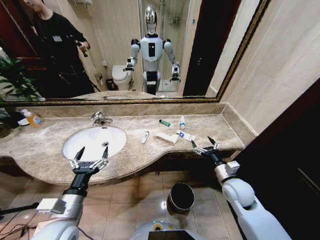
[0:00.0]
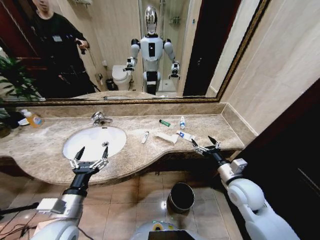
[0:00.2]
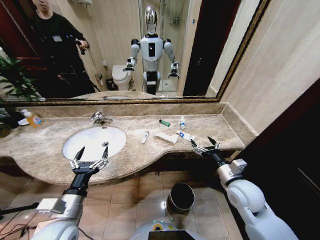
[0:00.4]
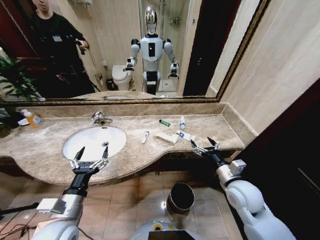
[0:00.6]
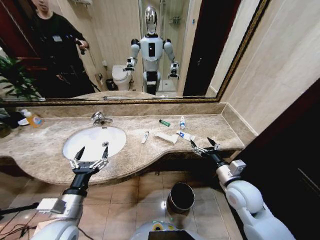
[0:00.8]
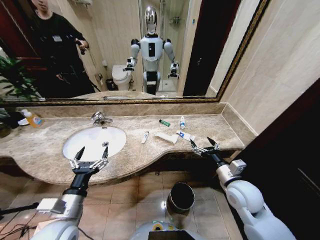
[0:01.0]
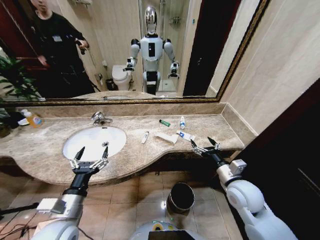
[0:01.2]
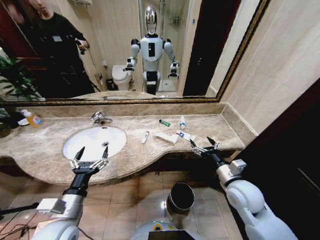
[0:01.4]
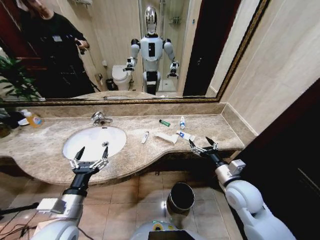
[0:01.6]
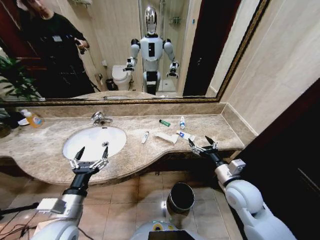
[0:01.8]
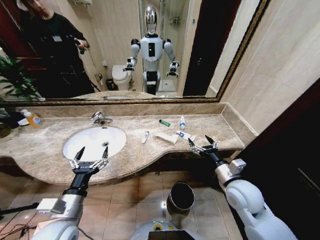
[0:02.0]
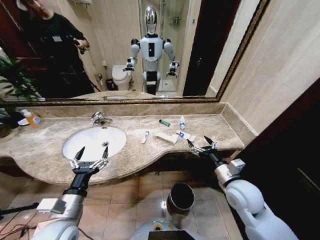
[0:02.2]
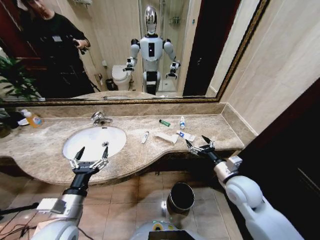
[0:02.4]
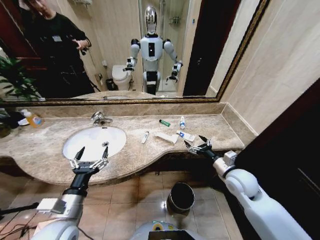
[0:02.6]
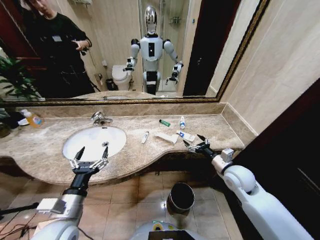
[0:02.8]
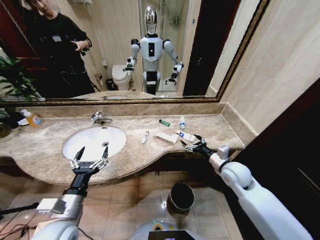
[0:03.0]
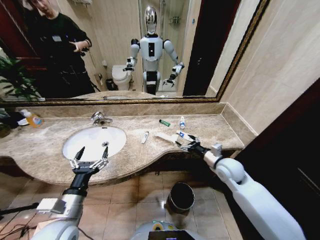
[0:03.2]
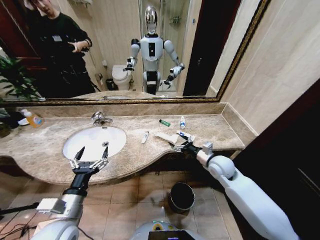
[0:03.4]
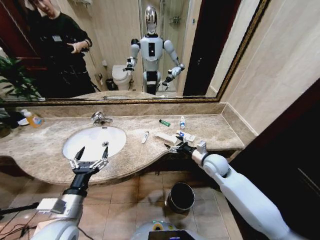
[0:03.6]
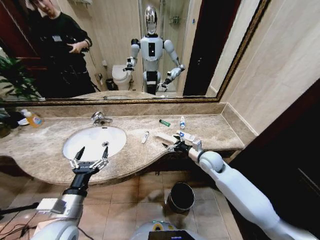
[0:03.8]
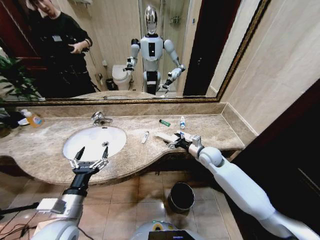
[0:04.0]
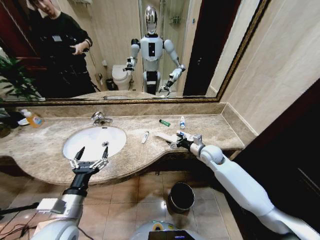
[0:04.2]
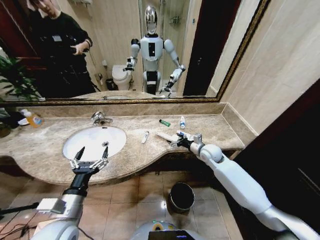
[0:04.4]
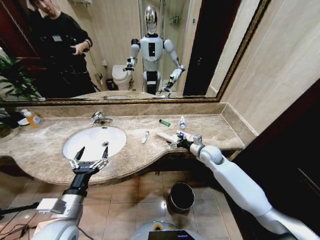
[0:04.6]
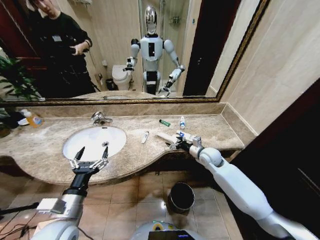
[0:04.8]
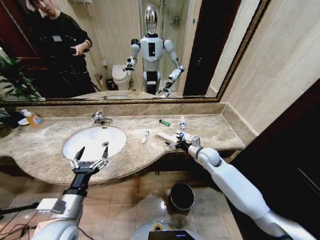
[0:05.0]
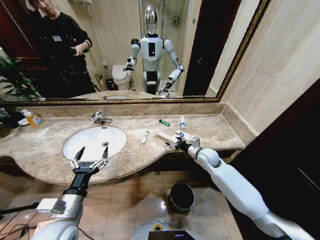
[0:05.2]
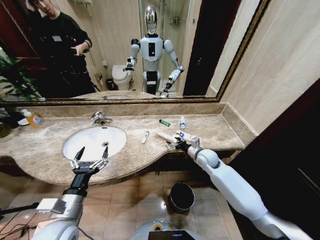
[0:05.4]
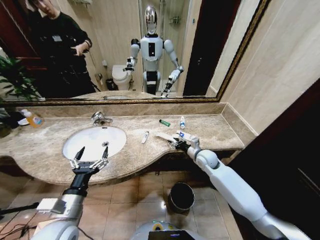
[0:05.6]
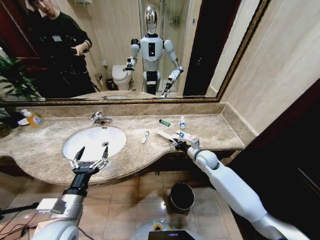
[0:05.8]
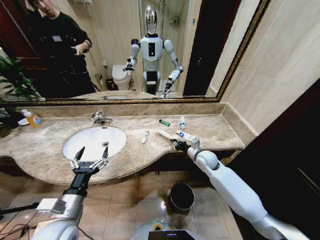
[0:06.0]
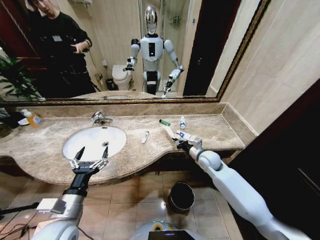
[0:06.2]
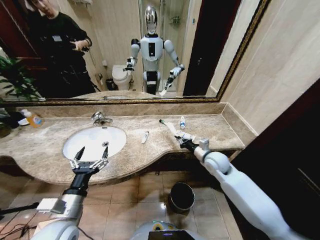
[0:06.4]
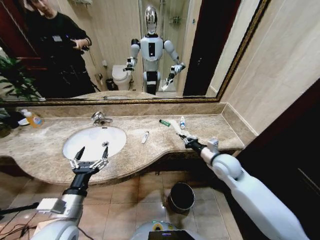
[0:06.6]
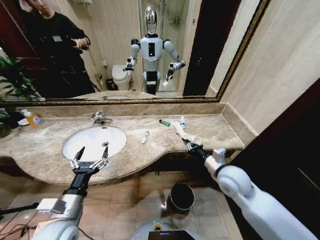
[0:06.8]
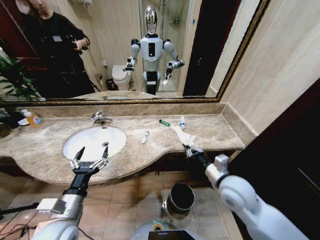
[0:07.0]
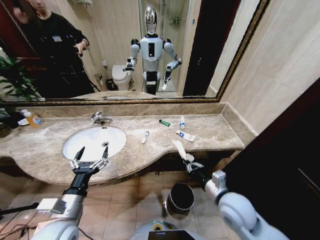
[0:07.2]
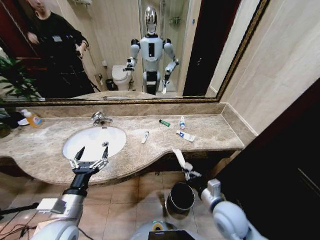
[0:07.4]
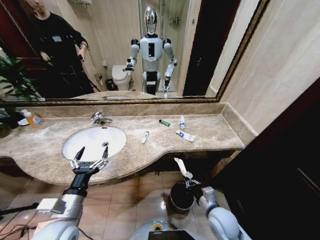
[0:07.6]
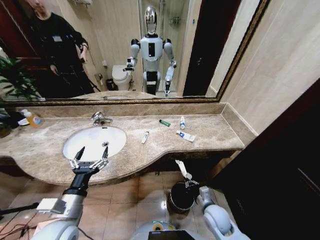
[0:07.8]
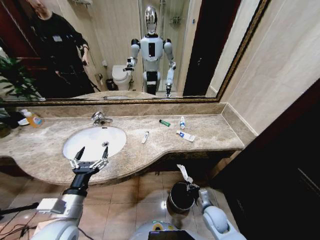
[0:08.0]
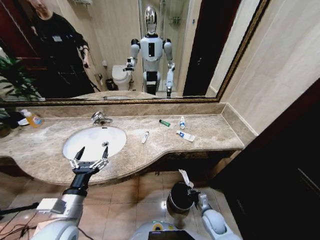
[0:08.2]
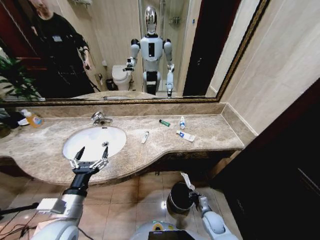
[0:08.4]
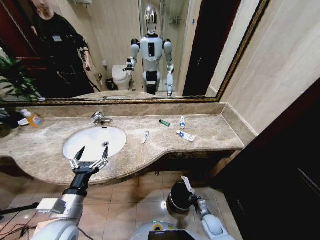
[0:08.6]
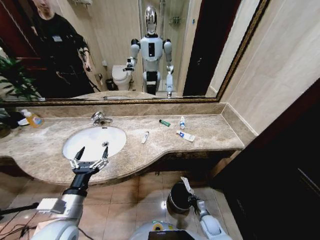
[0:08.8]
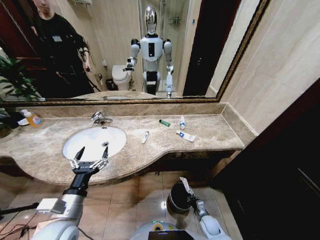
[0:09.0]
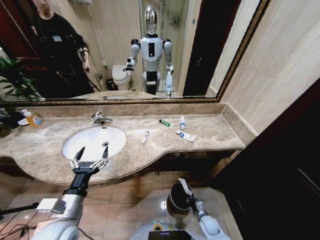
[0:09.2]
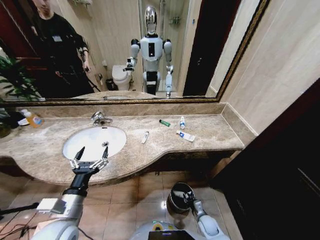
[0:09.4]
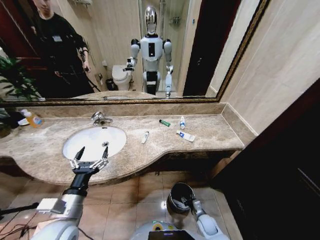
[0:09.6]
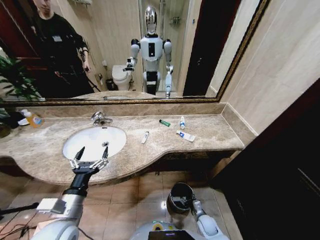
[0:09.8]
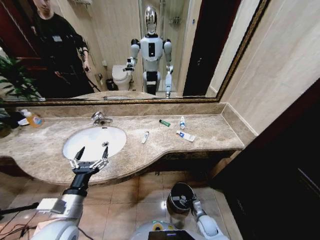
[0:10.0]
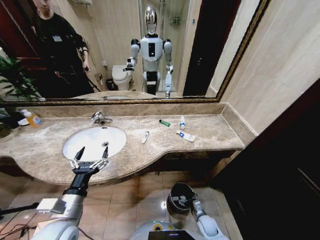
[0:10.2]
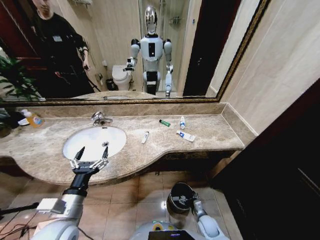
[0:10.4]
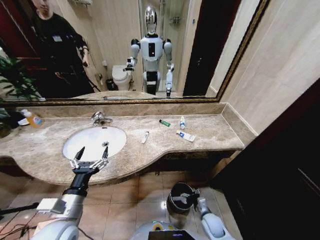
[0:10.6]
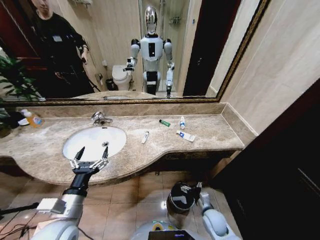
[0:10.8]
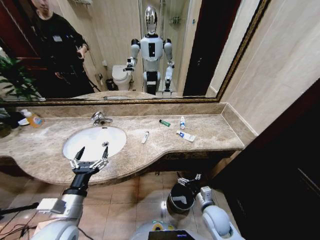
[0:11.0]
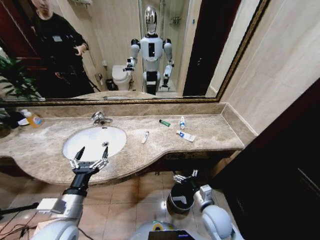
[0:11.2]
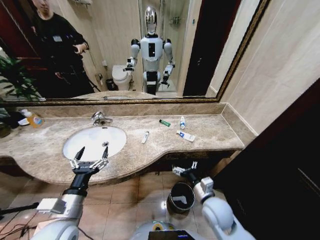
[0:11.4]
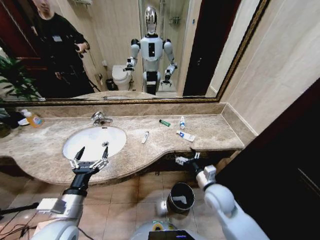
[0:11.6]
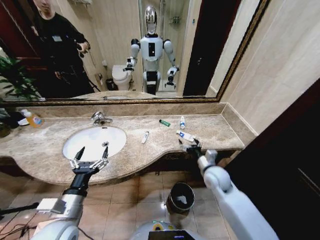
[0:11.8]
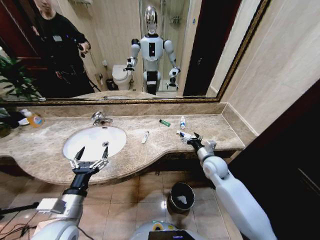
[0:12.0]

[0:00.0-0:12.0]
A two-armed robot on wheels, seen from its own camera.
Task of the whole recording: Pick up the trash from the sink and place it in the trash bin.
0:01.6 to 0:03.0: The right gripper heads forward, covering some 10 cm.
0:03.0 to 0:04.4: The right gripper is displaced forward by about 10 cm.
0:04.4 to 0:06.0: The right gripper closes its fingers.
0:06.0 to 0:07.6: The right gripper travels backward by roughly 25 cm.
0:07.6 to 0:09.0: The right gripper shifts approximately 25 cm downward.
0:09.0 to 0:10.4: The right gripper opens its fingers.
0:10.4 to 0:12.0: The right gripper travels upward and forward by approximately 35 cm.

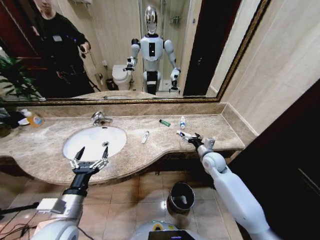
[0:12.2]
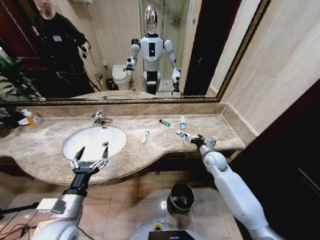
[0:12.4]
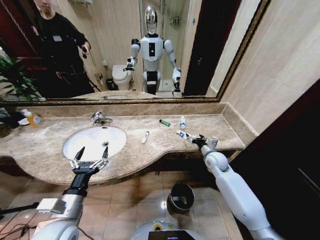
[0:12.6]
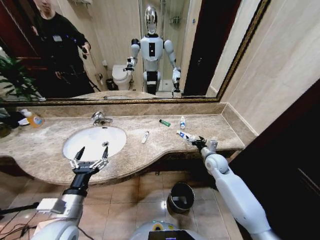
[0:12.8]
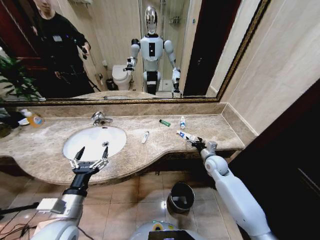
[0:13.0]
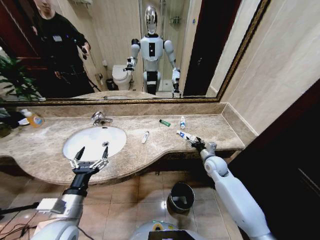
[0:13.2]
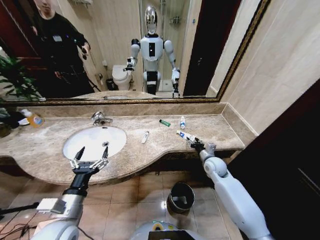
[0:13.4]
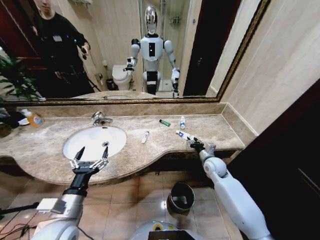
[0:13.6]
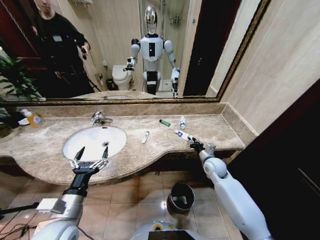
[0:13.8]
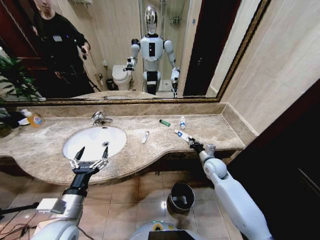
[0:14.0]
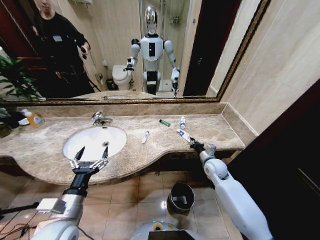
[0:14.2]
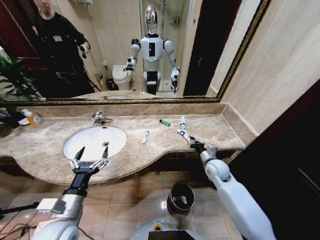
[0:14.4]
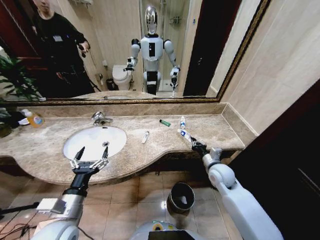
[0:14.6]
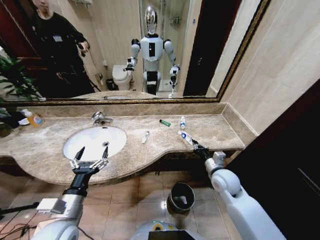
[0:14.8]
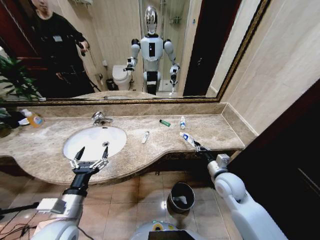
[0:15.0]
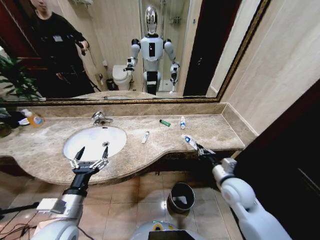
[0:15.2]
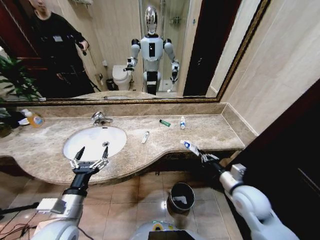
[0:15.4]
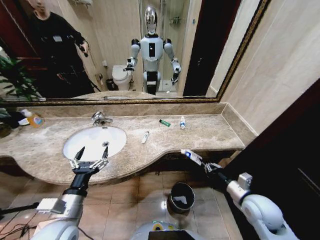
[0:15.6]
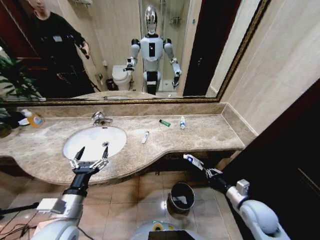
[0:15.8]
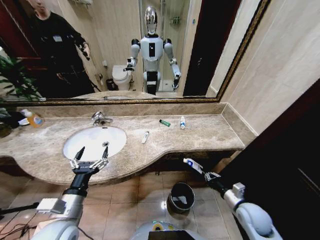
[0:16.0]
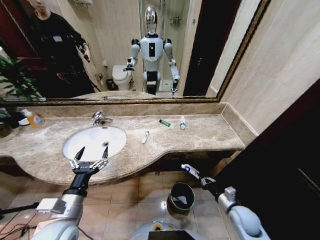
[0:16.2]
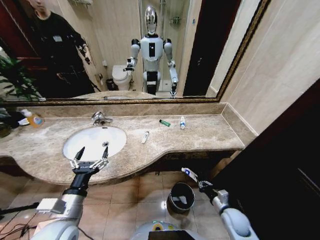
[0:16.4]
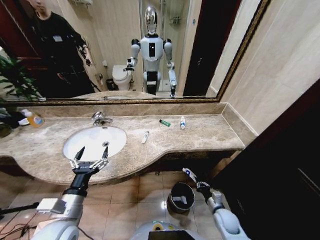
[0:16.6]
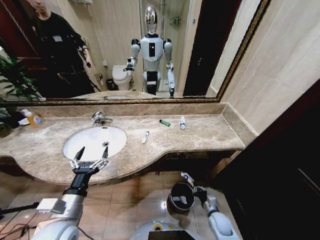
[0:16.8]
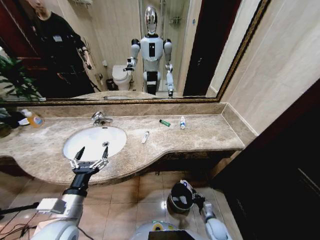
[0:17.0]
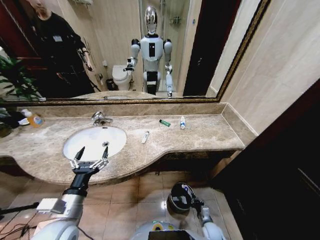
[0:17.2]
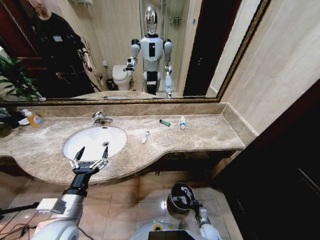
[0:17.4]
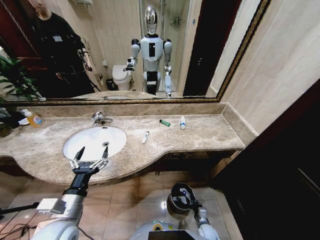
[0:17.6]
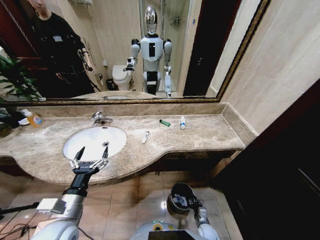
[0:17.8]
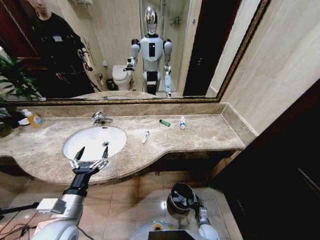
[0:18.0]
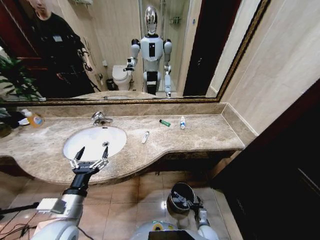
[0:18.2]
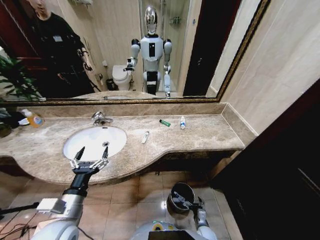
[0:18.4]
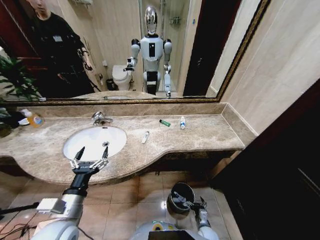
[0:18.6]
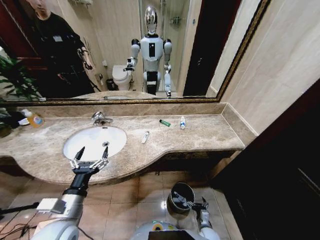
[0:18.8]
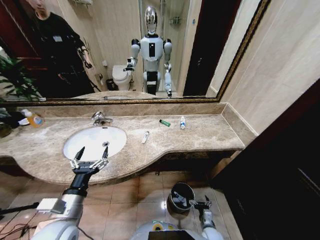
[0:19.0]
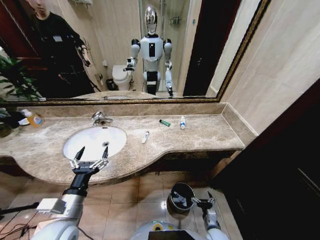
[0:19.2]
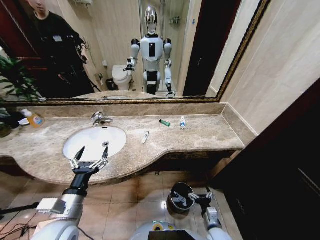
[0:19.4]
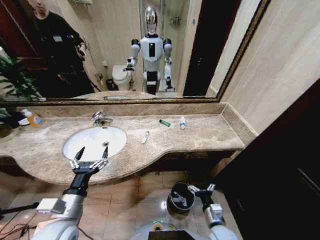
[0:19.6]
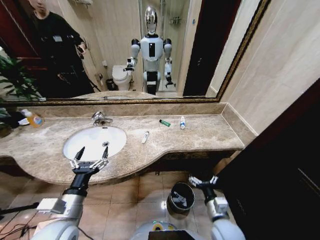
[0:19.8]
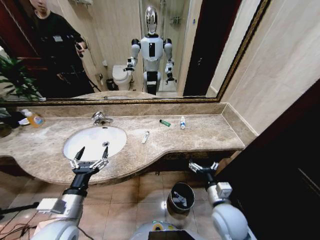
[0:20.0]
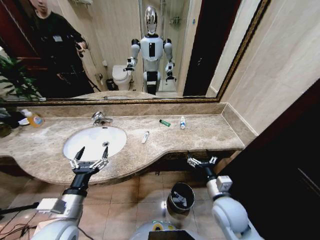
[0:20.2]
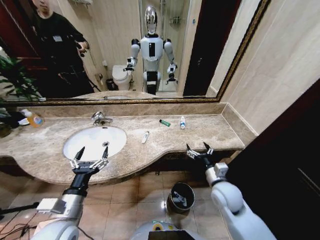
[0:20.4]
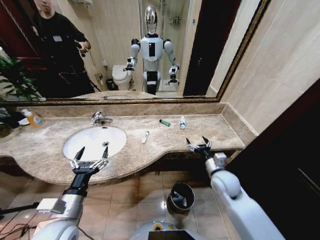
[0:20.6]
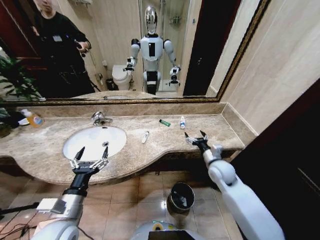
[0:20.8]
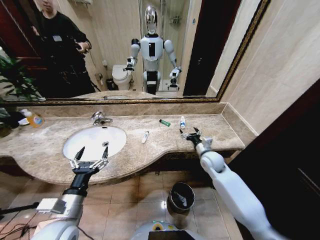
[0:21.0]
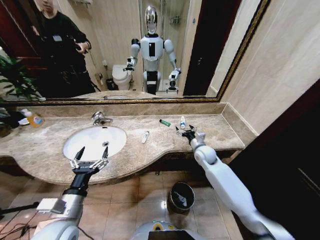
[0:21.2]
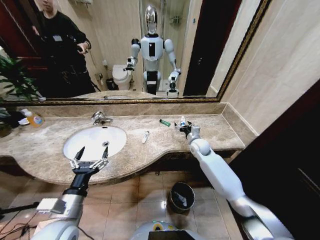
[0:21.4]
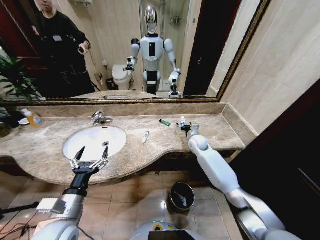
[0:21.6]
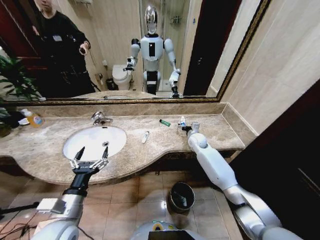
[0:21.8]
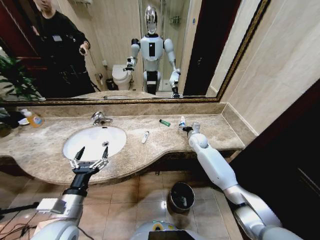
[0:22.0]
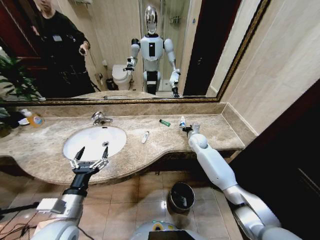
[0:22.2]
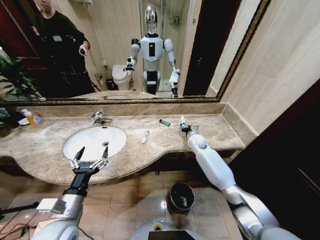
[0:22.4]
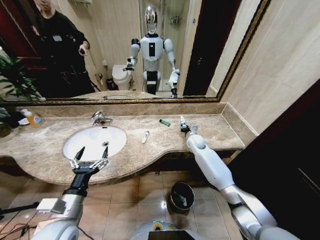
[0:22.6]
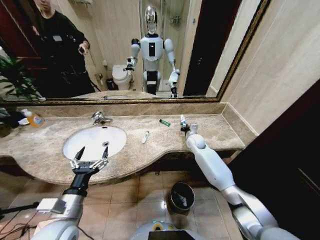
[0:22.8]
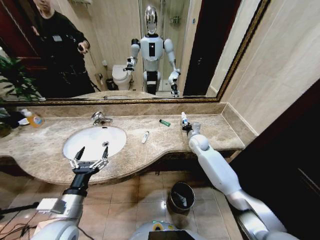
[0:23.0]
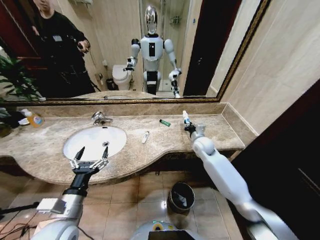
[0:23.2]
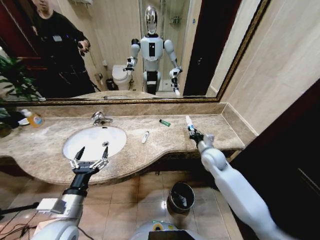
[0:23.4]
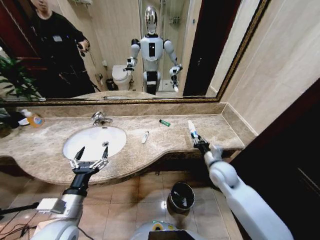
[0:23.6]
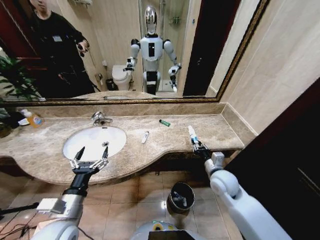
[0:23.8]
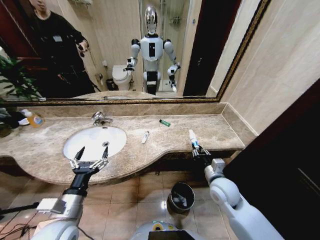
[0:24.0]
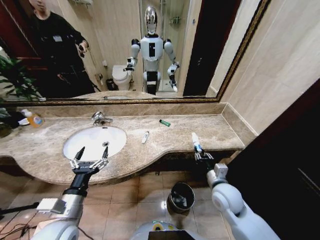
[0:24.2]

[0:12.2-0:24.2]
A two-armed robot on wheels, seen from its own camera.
Task of the whole recording: Pick up the trash from the sink and place it in the trash bin.
0:12.2 to 0:13.8: The right gripper closes its fingers.
0:13.8 to 0:15.2: The right gripper shifts approximately 15 cm backward and upward.
0:15.2 to 0:16.6: The right gripper moves downward, approximately 20 cm.
0:16.6 to 0:18.2: The right gripper shifts approximately 15 cm downward and to the left, and opens.
0:18.2 to 0:19.8: The right gripper moves upward, about 25 cm.
0:19.8 to 0:21.2: The right gripper heads forward, covering about 30 cm.
0:21.2 to 0:22.6: The right gripper is displaced forward by some 10 cm, and closes up.
0:22.6 to 0:24.2: The right gripper shifts about 30 cm backward.
